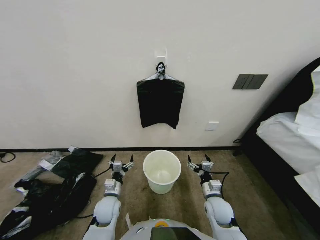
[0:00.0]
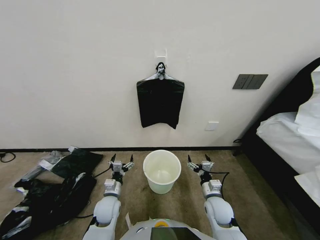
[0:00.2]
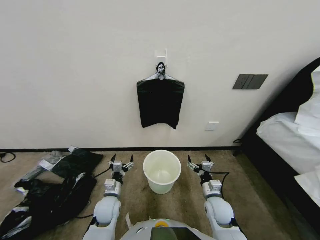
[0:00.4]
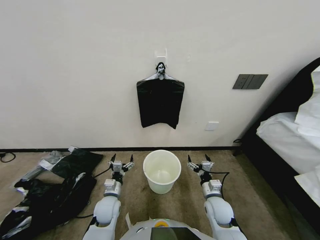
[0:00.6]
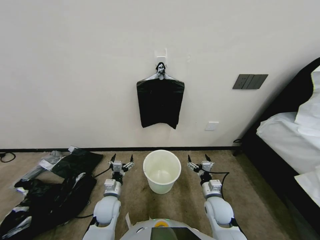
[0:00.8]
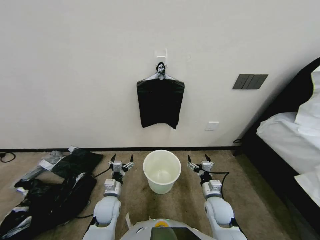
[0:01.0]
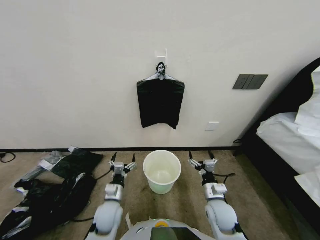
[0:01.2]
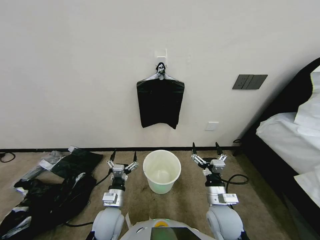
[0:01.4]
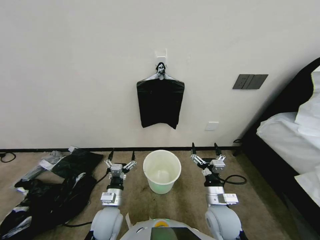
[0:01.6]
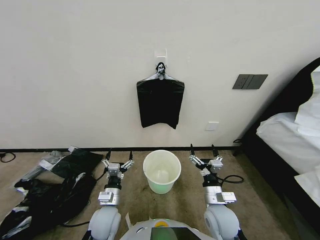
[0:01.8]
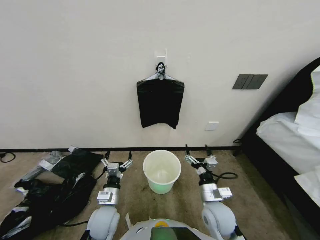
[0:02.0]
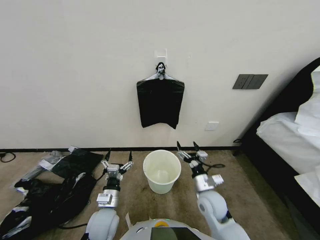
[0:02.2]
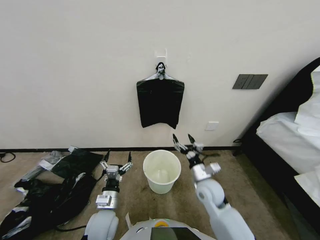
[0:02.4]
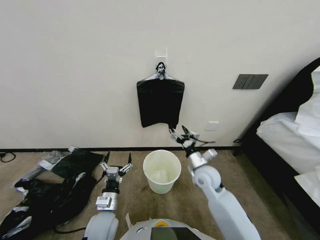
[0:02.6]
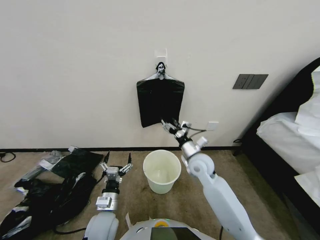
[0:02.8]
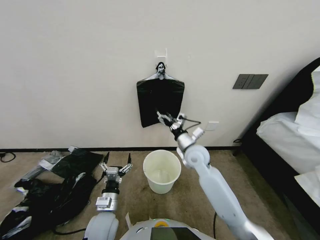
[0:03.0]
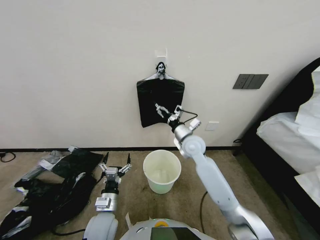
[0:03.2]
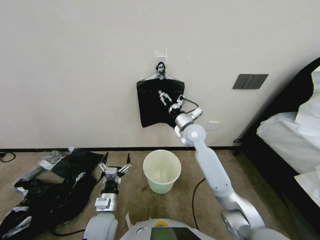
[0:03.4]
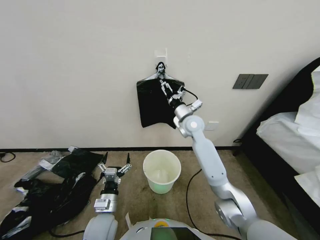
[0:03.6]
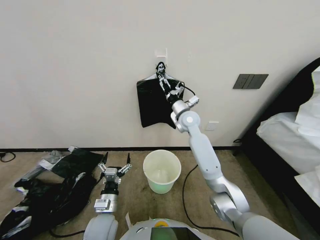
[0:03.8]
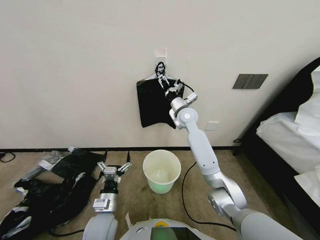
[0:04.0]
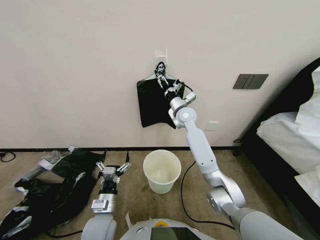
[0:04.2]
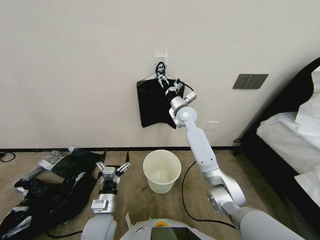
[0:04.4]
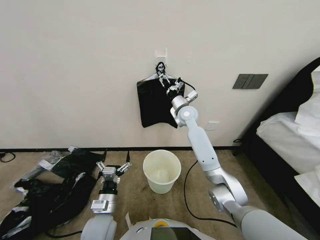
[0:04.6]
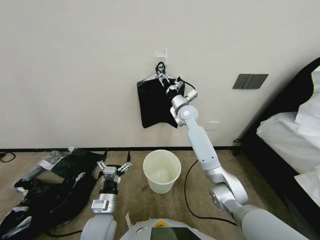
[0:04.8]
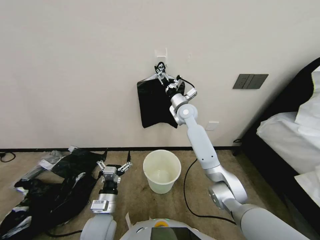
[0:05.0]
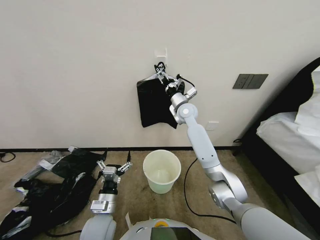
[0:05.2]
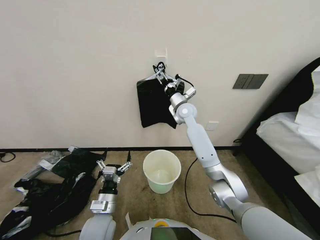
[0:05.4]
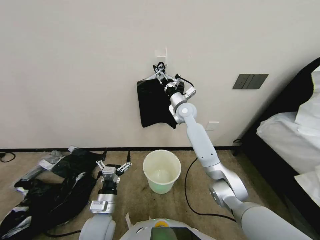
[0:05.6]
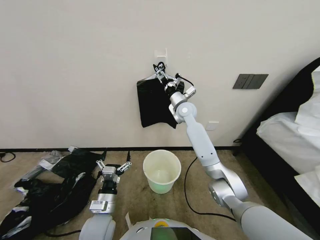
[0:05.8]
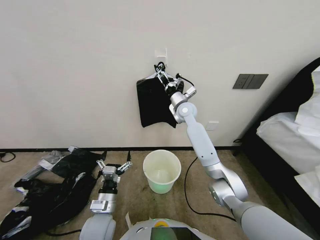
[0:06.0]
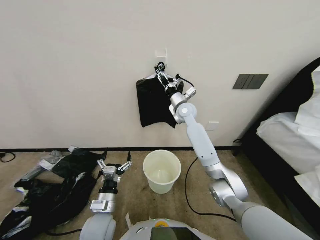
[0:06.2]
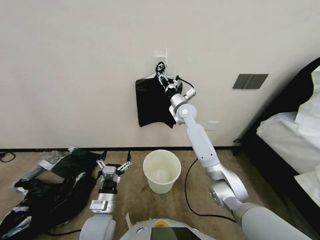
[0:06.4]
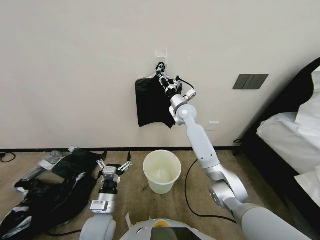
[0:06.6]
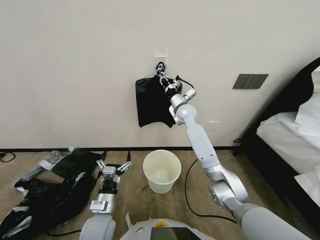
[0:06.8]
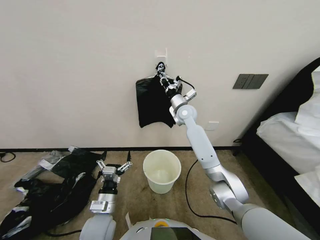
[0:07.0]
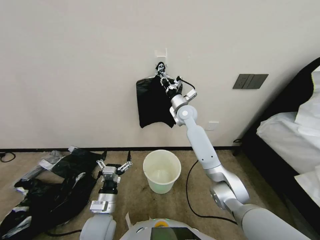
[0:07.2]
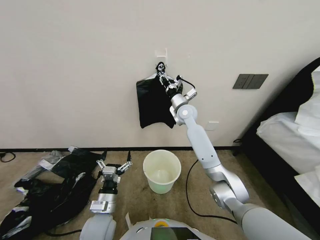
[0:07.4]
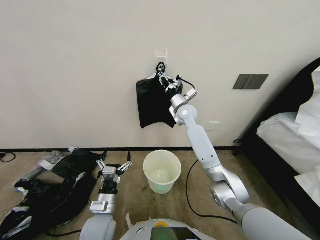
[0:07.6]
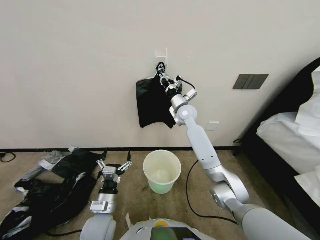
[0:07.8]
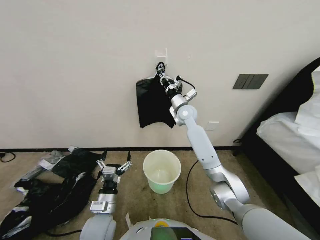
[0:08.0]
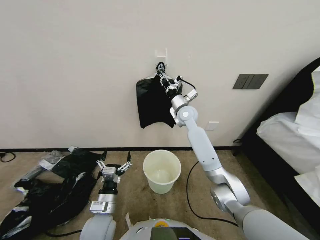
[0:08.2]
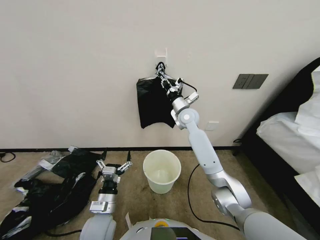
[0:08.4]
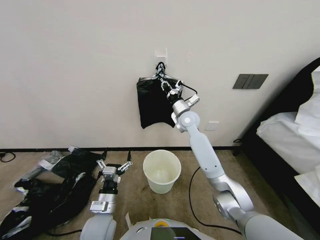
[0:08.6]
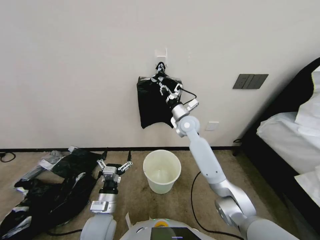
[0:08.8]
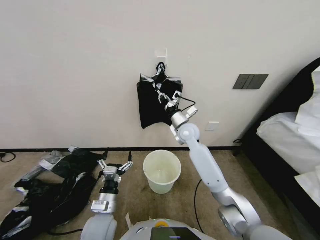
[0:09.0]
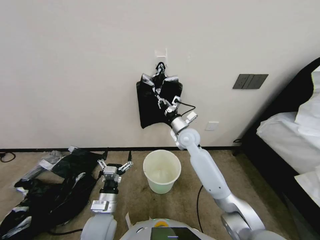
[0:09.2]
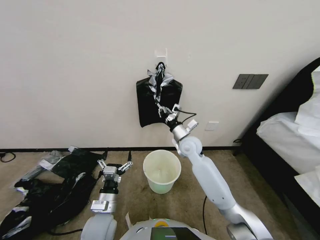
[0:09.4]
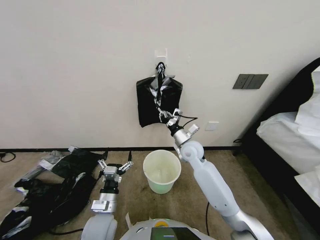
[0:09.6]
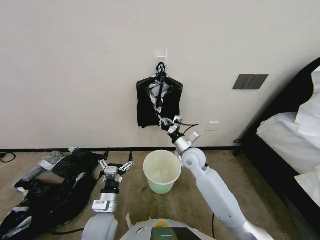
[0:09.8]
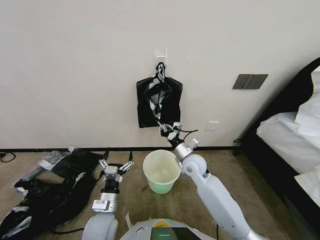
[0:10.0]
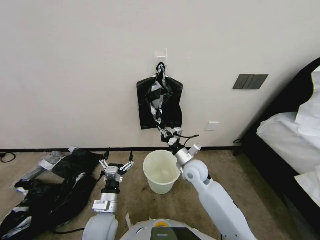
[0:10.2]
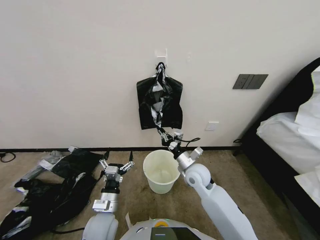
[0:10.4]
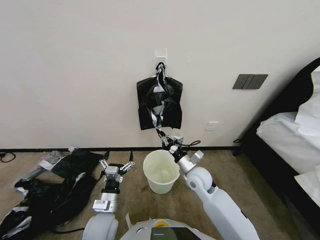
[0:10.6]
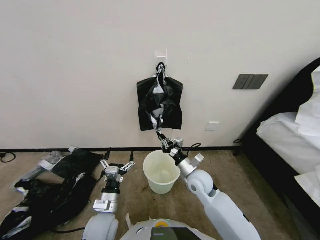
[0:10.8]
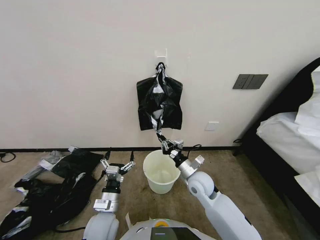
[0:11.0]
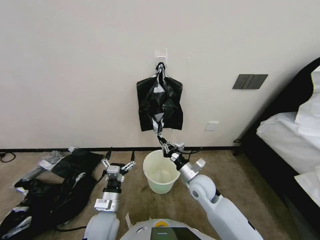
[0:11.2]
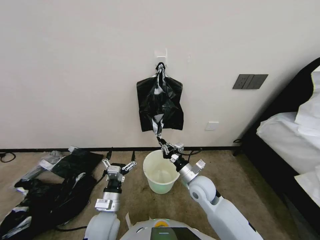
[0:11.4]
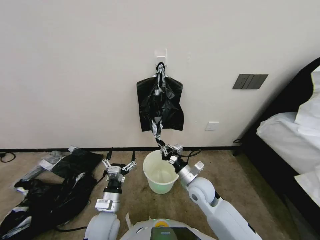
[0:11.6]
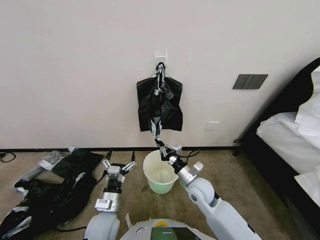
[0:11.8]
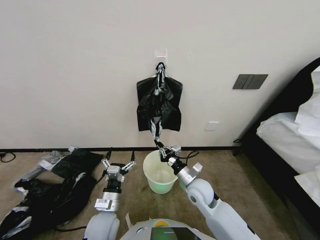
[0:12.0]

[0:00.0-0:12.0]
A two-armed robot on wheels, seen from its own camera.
Task of the whole recording: Place a trash bag onto the trash bin.
0:01.6 to 0:03.0: The right gripper travels forward and upward by some 20 cm.
0:03.0 to 0:04.4: The right gripper heads forward and upward, covering roughly 20 cm.
0:04.4 to 0:06.0: There are only small adjustments of the grippers.
0:06.0 to 0:07.6: The right gripper closes up.
0:07.6 to 0:09.0: The right gripper goes roughly 5 cm backward.
0:09.0 to 0:10.4: The right gripper moves backward and downward, about 20 cm.
0:10.4 to 0:12.0: The right gripper shifts roughly 5 cm backward.

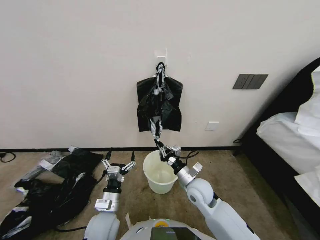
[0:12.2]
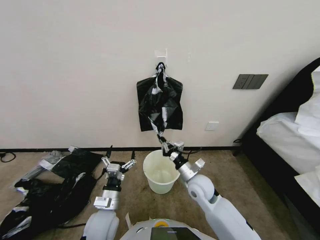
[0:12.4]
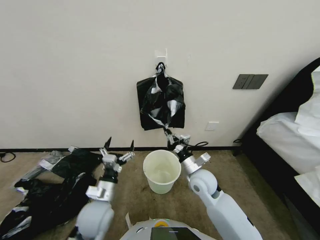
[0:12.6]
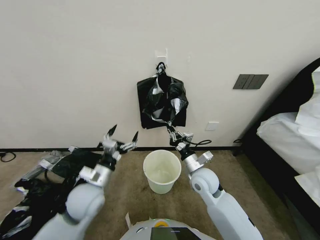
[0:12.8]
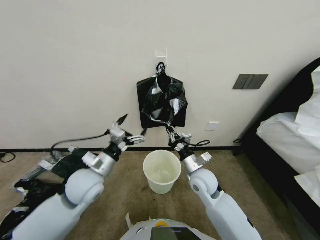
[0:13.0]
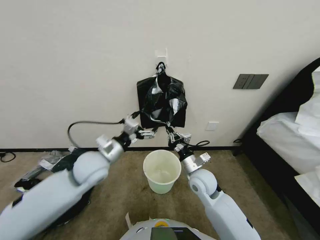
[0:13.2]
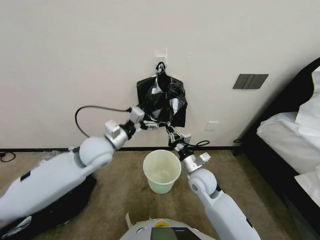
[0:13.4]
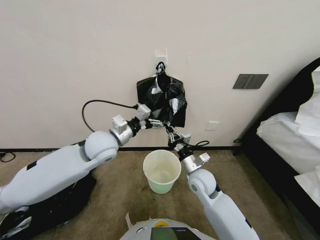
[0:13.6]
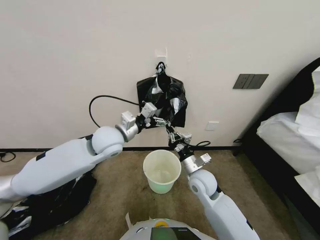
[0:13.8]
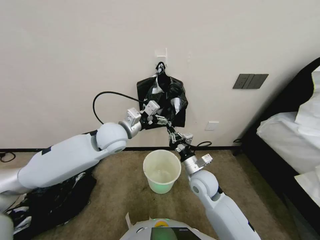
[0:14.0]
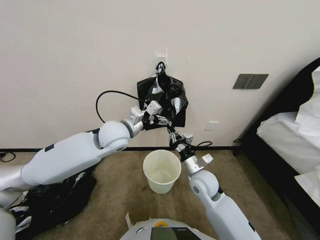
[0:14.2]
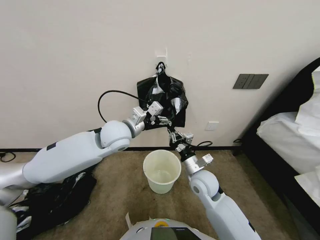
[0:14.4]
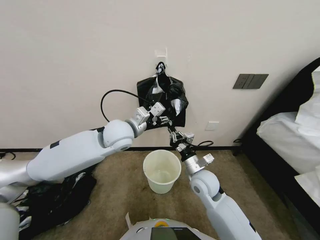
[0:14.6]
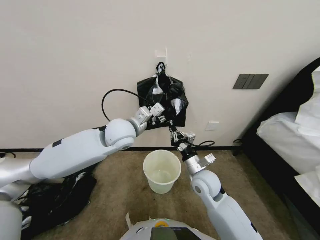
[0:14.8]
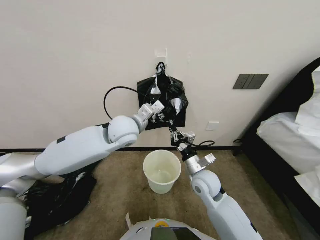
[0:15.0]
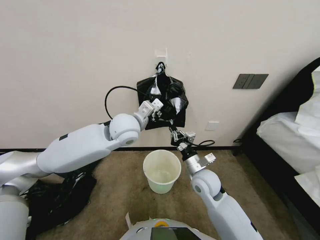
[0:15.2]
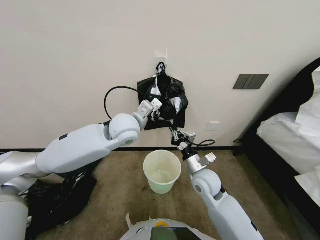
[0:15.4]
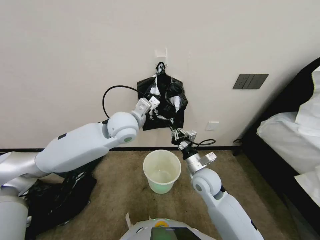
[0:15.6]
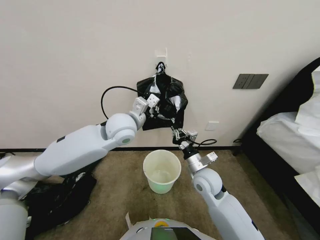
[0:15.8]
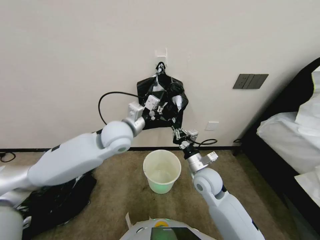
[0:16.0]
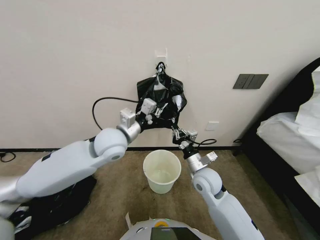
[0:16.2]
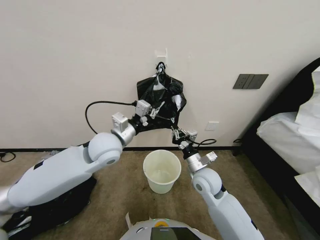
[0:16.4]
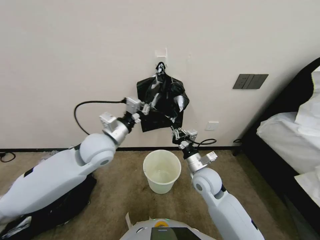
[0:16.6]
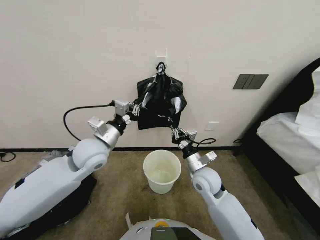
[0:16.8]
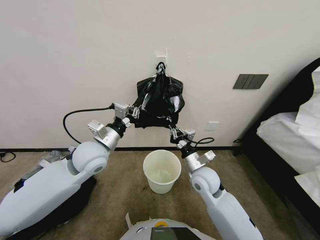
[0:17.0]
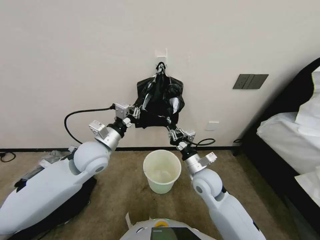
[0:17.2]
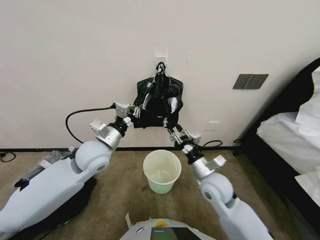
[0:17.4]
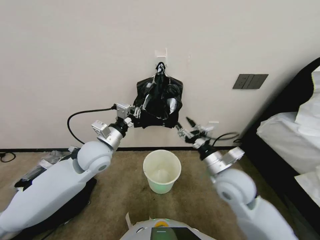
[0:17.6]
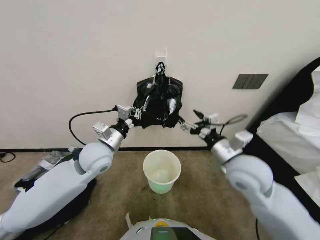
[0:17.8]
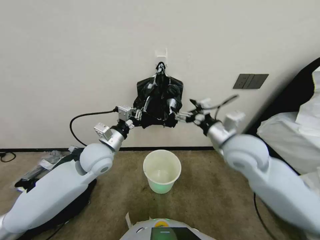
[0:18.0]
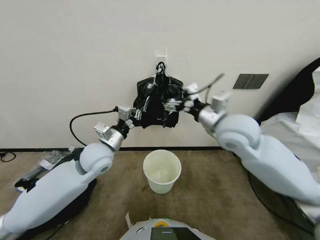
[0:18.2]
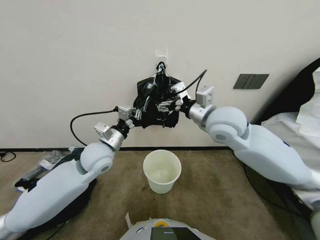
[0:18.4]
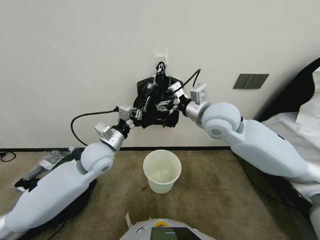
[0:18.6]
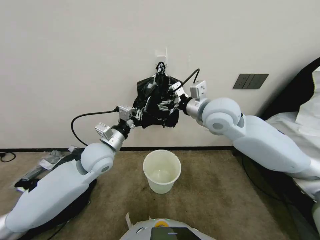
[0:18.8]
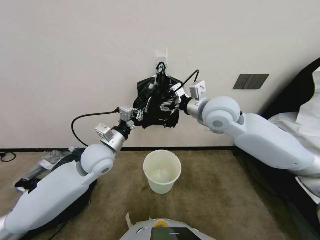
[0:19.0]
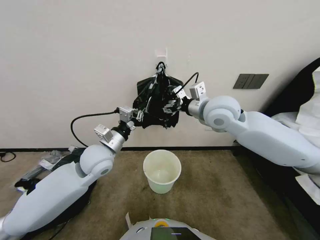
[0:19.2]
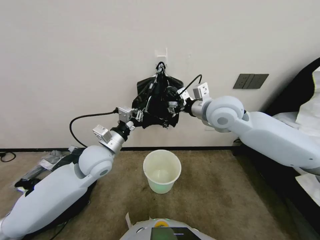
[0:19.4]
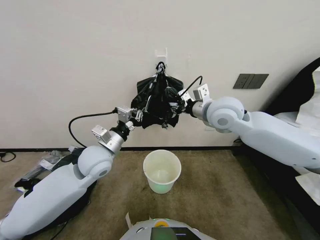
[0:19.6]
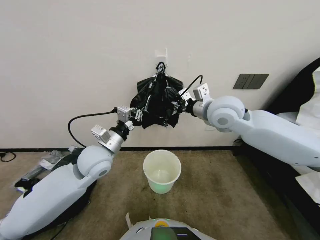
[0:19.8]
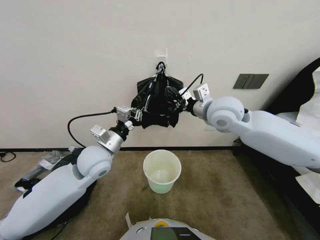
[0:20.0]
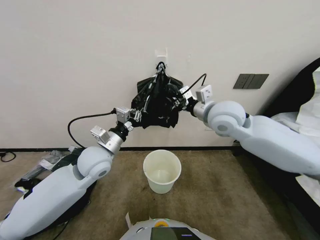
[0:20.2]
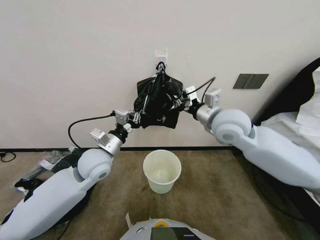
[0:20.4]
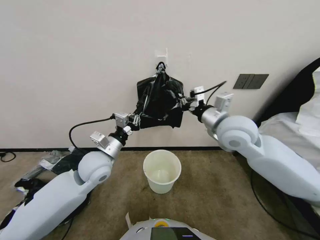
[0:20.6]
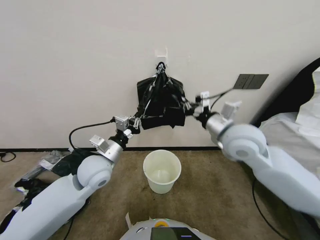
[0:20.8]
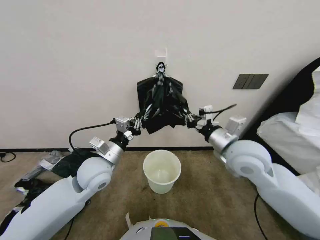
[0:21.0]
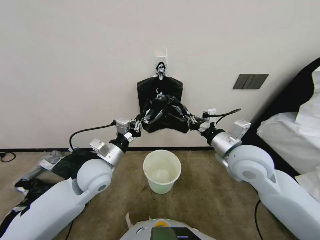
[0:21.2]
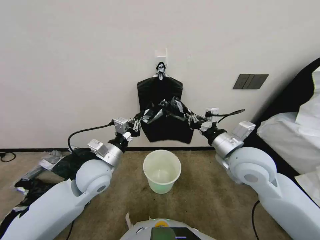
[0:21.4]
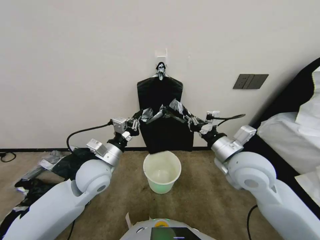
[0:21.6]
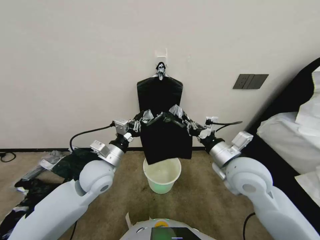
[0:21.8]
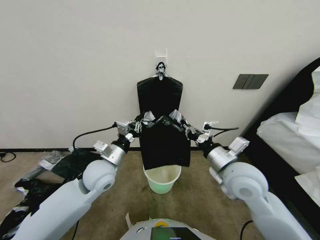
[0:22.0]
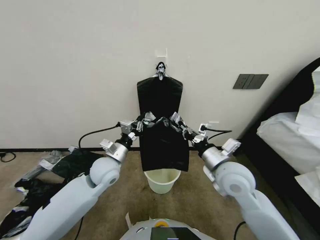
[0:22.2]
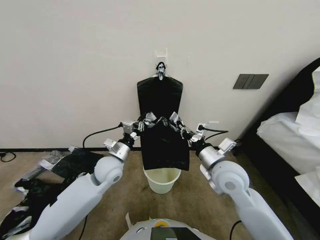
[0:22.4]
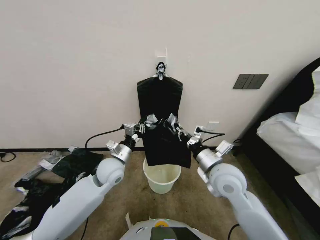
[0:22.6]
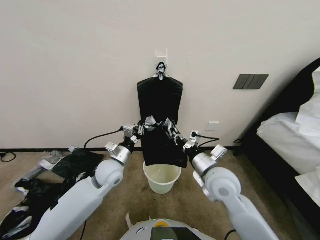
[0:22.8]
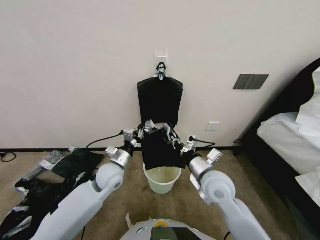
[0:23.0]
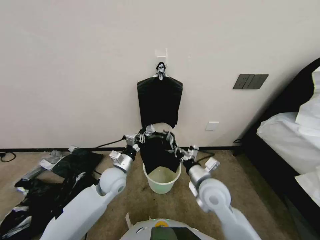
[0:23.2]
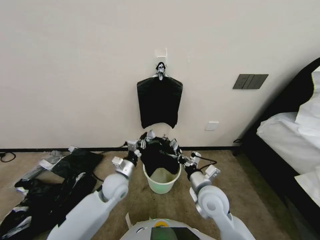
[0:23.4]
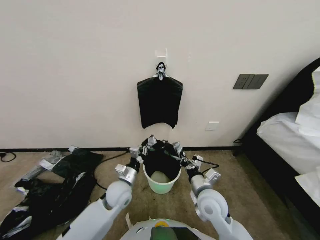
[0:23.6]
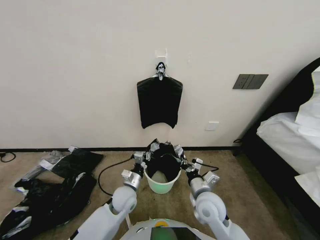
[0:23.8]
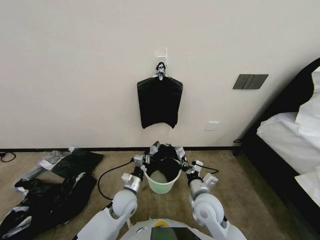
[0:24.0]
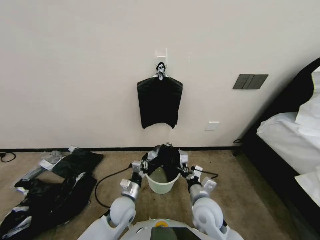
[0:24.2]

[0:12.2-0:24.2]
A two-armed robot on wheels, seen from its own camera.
Task of the whole recording: Place a trash bag onto the trash bin.
0:12.2 to 0:13.8: The left gripper moves upward and forward, approximately 30 cm.
0:13.8 to 0:15.2: The left gripper travels to the right by about 5 cm, and closes up.
0:15.2 to 0:16.6: The left gripper is displaced to the left and backward by roughly 10 cm, and closes.
0:16.6 to 0:18.2: The right gripper moves upward, some 20 cm, and opens.
0:18.2 to 0:19.8: The right gripper is displaced forward by about 10 cm, and closes its fingers.
0:19.8 to 0:21.2: The right gripper moves backward and downward, roughly 15 cm.
0:21.2 to 0:22.6: The two grippers go approximately 5 cm downward.
0:22.6 to 0:24.2: The grippers both shift downward and backward by roughly 15 cm.
